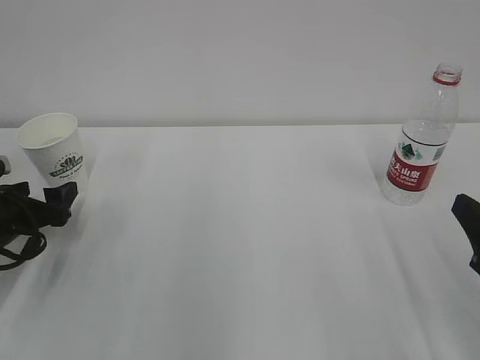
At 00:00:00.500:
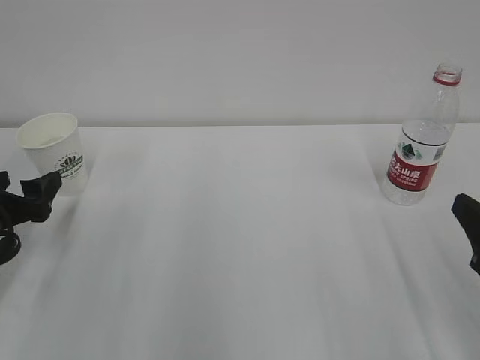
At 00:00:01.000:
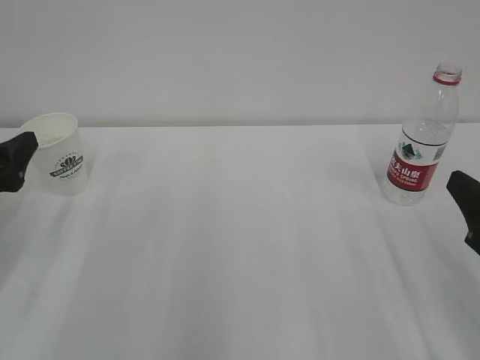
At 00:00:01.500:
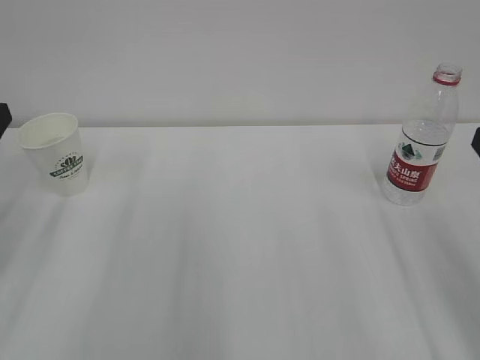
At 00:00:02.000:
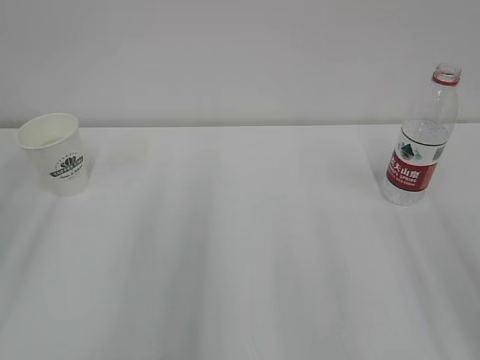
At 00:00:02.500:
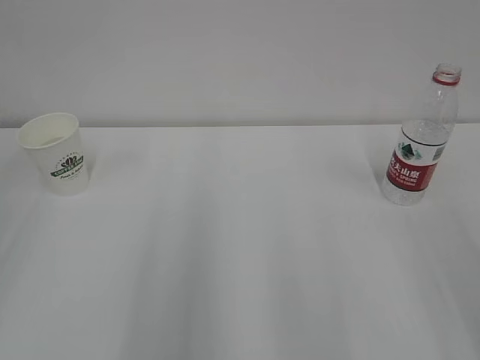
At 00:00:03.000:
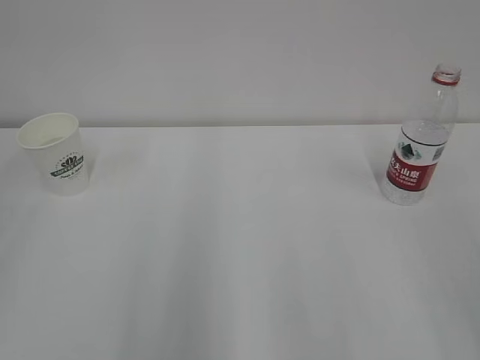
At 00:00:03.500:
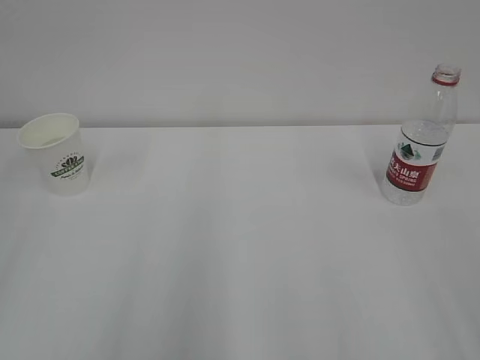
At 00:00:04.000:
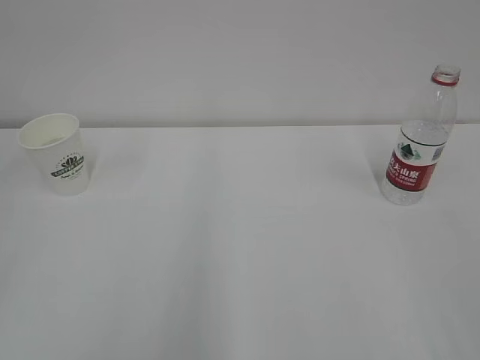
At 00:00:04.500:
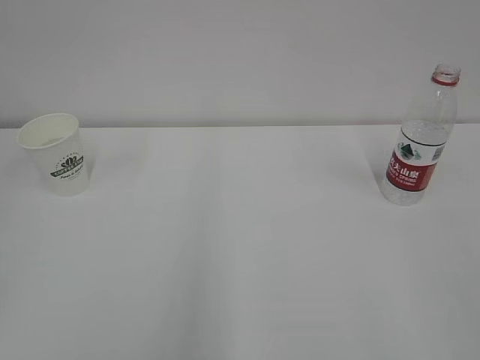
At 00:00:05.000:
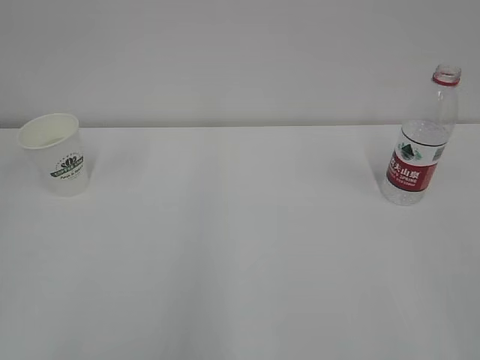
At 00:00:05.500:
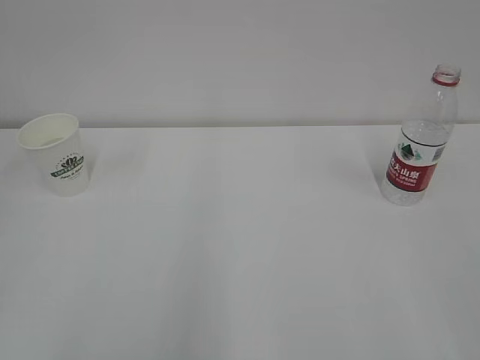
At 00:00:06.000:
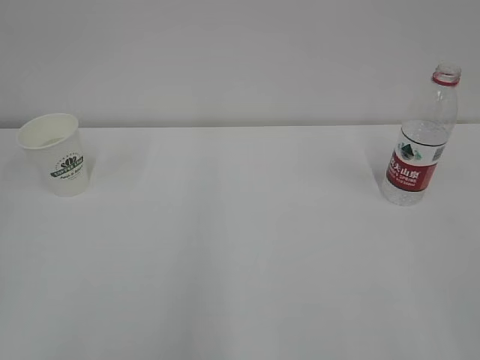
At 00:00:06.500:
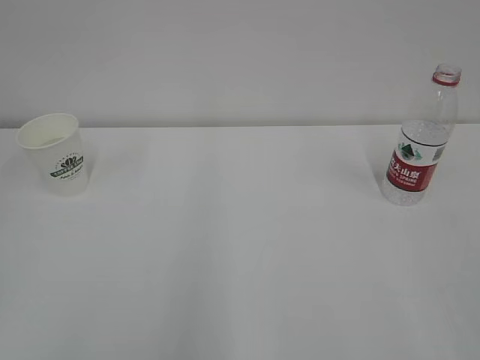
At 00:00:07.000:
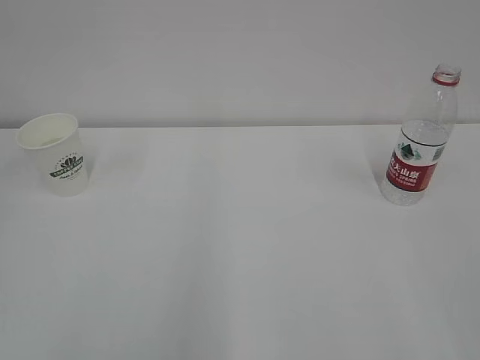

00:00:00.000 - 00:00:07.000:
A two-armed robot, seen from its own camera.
00:00:00.000 - 00:00:02.000: The left gripper shifts some 25 cm upward and backward, while the right gripper travels upward by approximately 10 cm.
